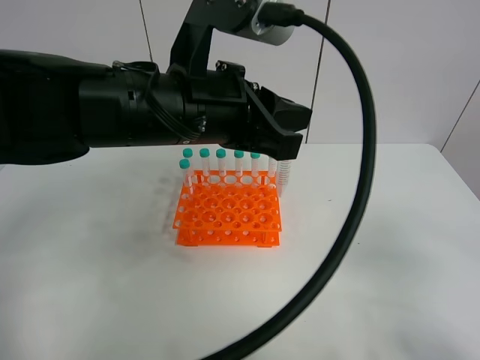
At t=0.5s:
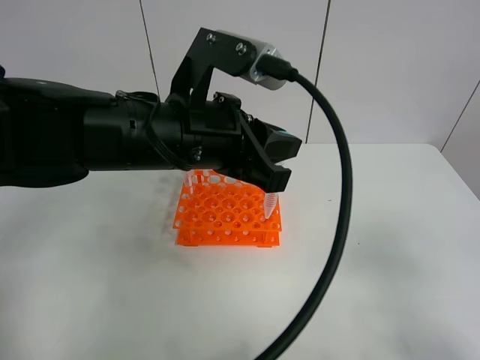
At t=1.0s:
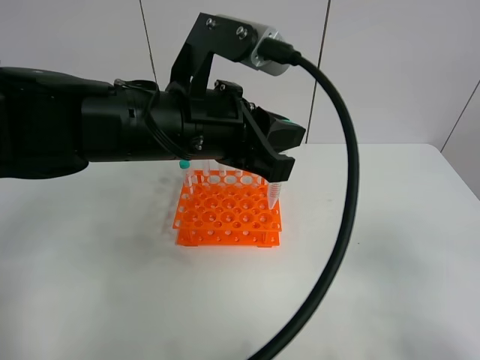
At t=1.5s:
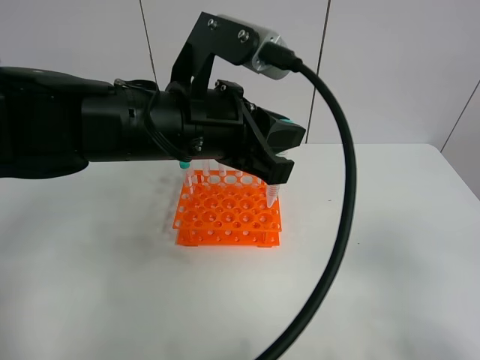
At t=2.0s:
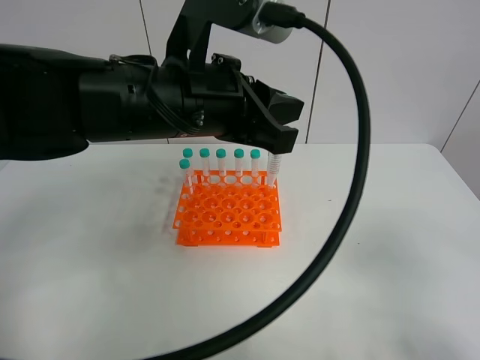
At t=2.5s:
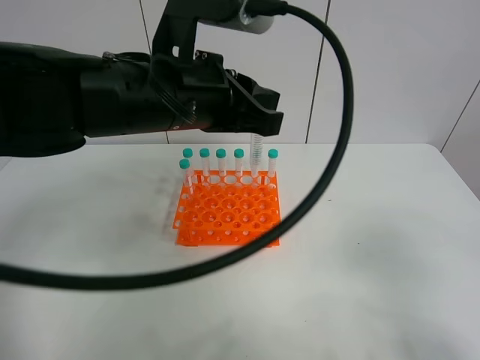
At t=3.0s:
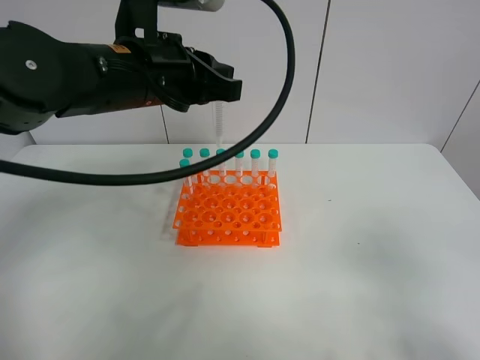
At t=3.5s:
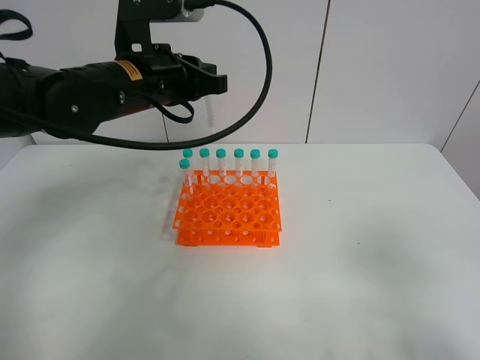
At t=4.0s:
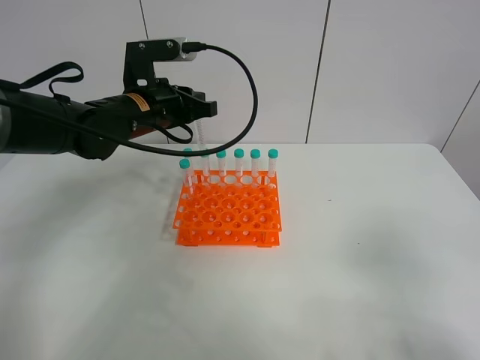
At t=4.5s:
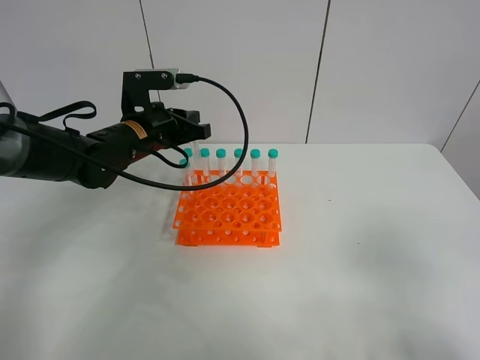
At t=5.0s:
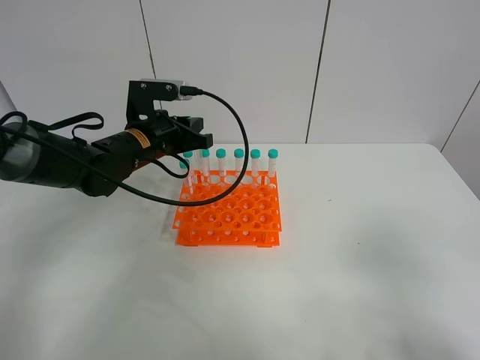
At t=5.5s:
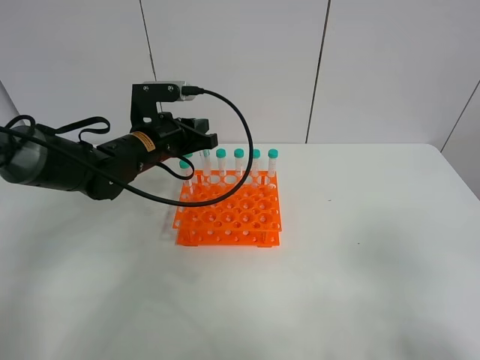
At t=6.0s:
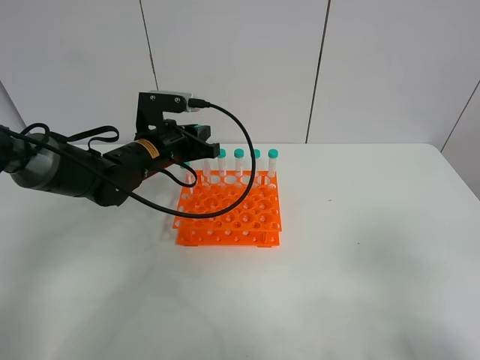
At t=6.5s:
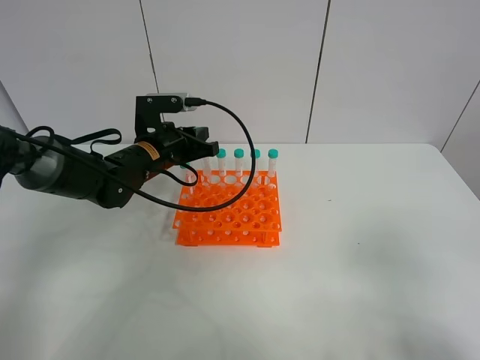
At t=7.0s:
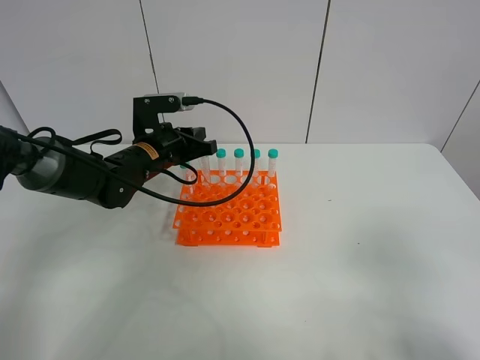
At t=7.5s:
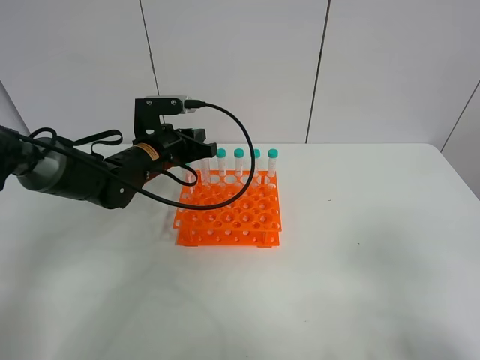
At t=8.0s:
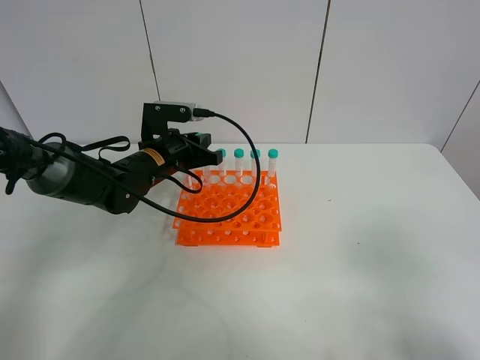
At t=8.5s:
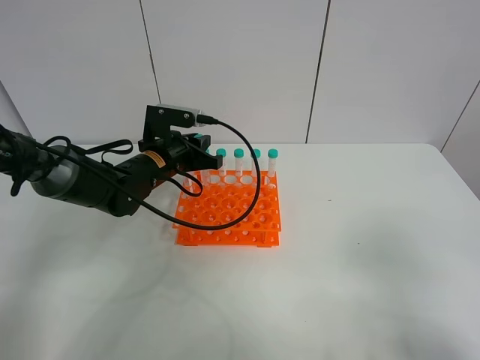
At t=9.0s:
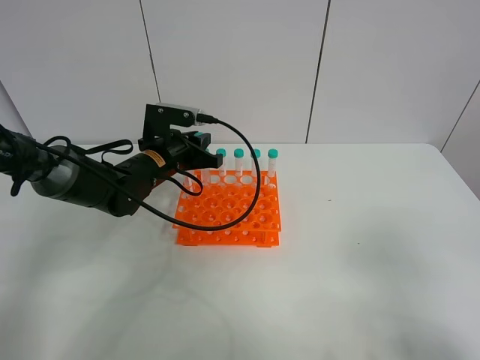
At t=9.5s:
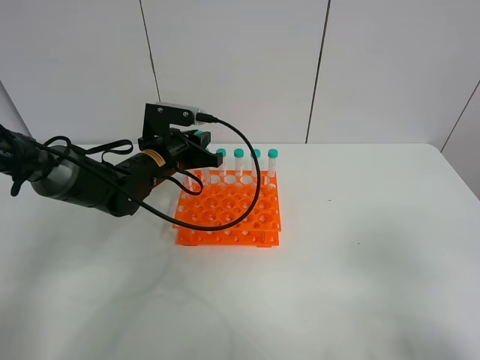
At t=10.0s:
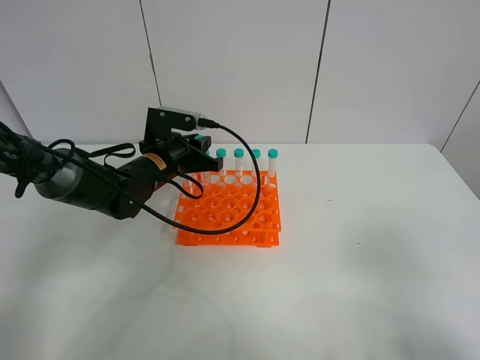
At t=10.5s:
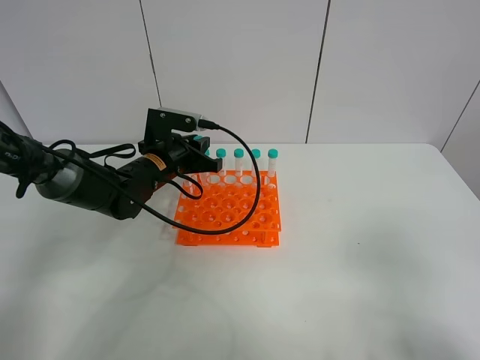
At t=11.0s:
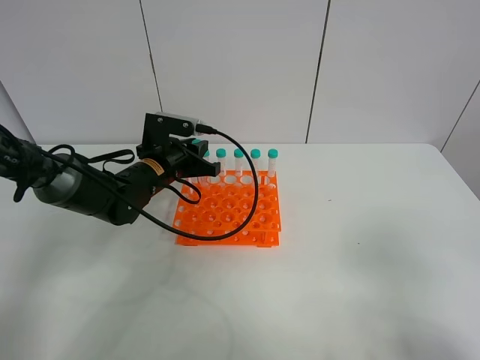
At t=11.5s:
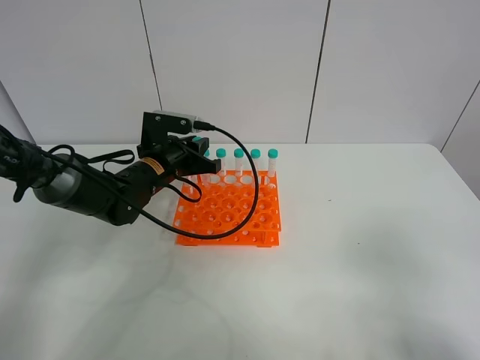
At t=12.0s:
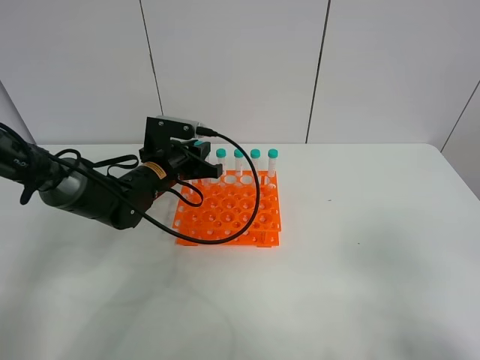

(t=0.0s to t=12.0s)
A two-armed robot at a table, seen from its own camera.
Task of the whole recording: Put the test tube on the table back onto the test tube rack.
t=0.0s - t=2.0s: The grippers stay close to where they were, moving slightly.
t=2.0s - t=4.0s: The left gripper goes roughly 15 cm forward, to the left and downward.
t=4.0s - t=6.0s: The left gripper goes some 5 cm downward.
t=6.0s - t=10.0s: The grippers make only small movements.
t=10.0s - t=12.0s: Neither gripper changes place.

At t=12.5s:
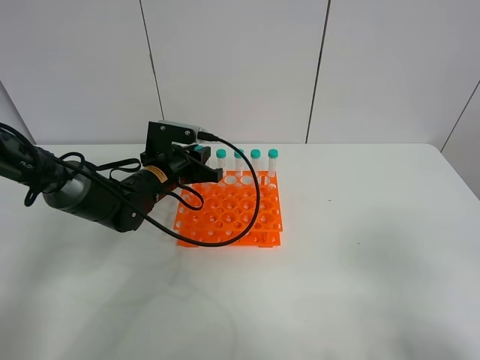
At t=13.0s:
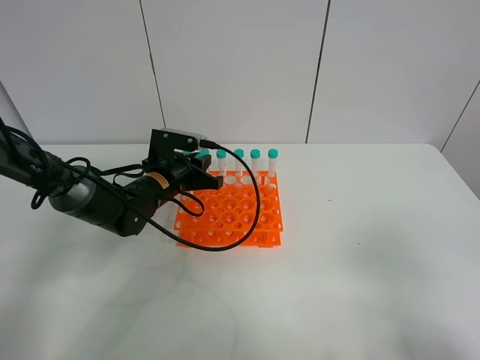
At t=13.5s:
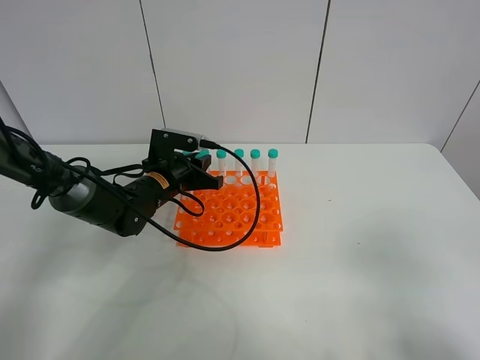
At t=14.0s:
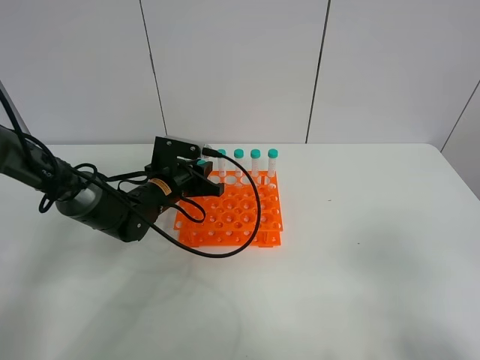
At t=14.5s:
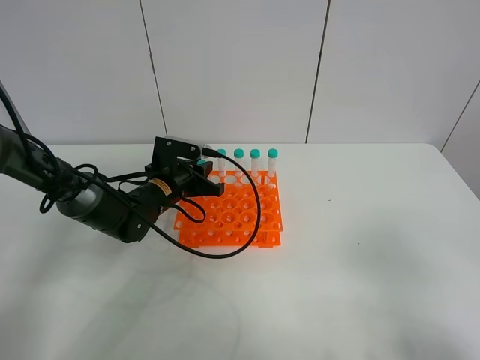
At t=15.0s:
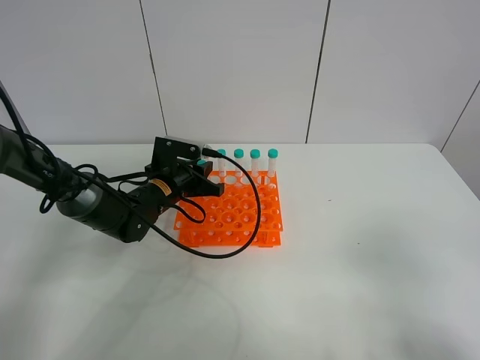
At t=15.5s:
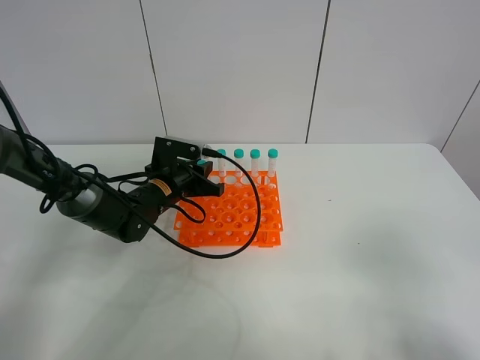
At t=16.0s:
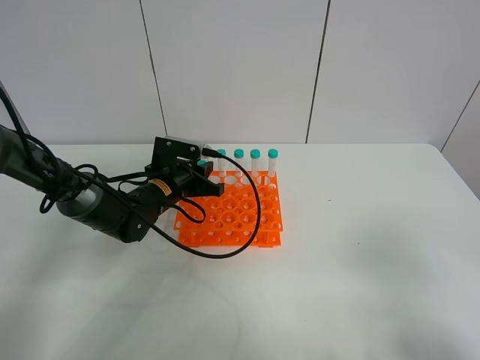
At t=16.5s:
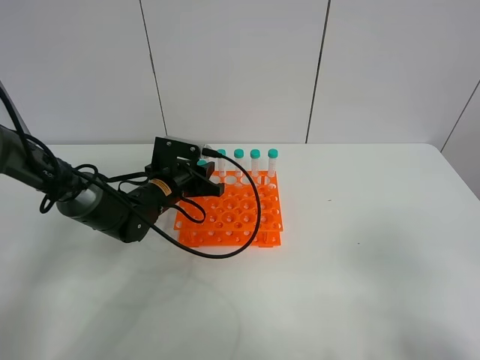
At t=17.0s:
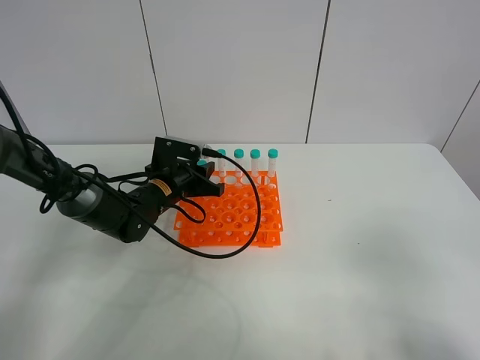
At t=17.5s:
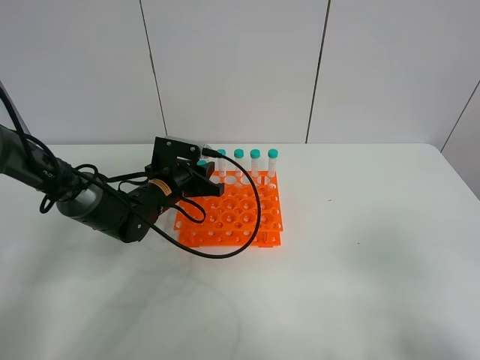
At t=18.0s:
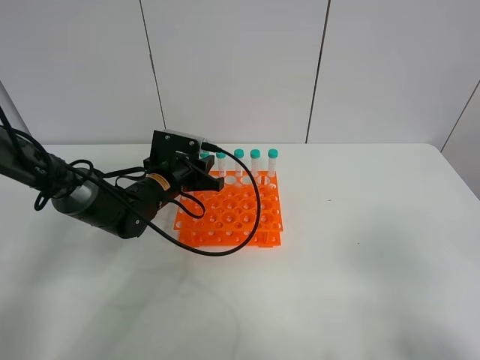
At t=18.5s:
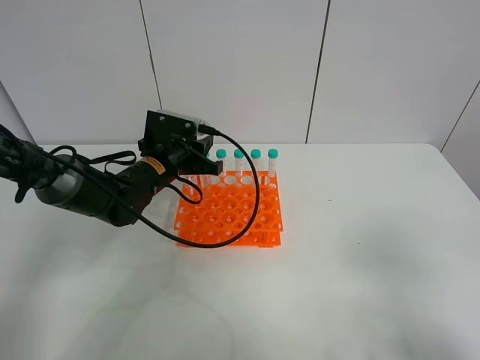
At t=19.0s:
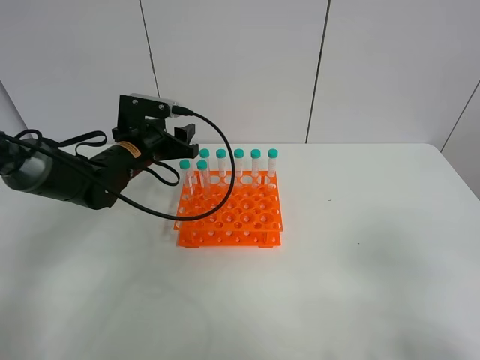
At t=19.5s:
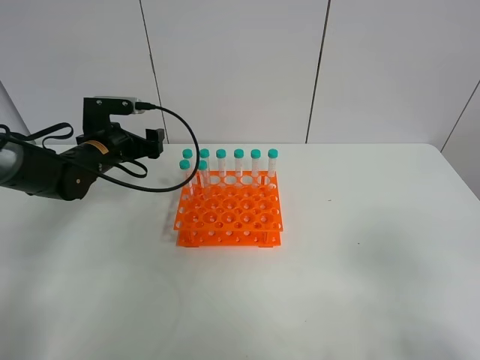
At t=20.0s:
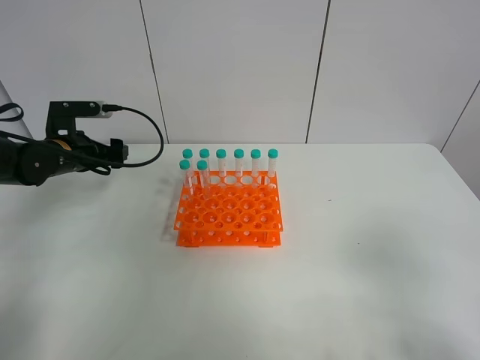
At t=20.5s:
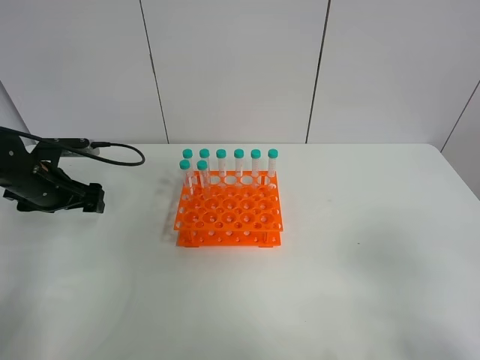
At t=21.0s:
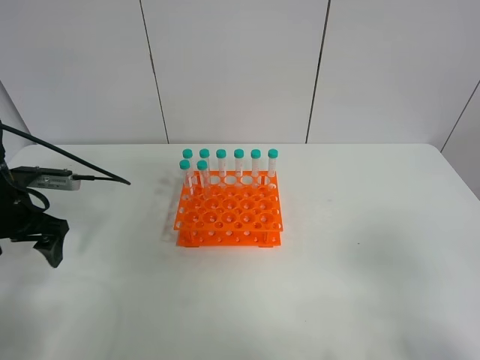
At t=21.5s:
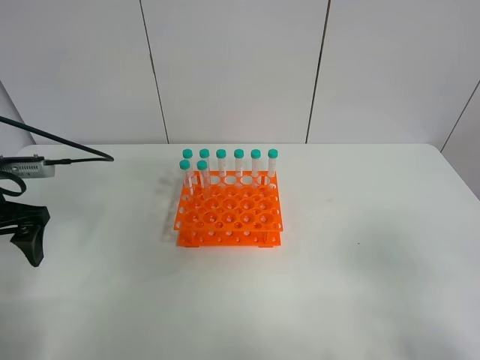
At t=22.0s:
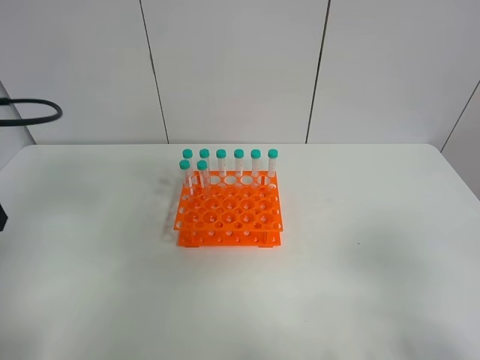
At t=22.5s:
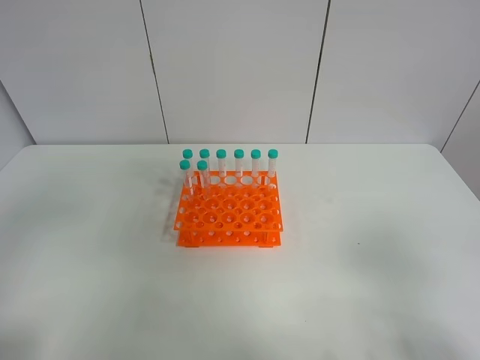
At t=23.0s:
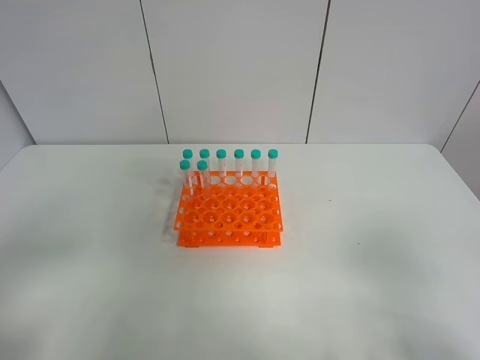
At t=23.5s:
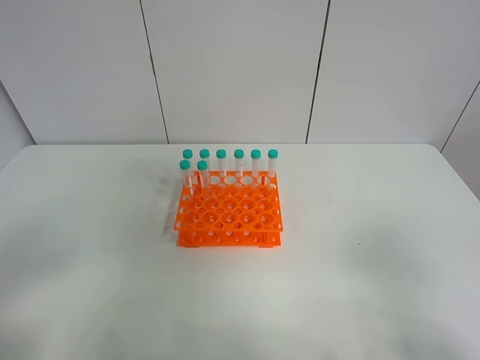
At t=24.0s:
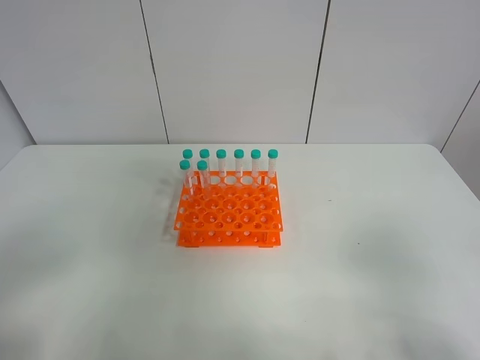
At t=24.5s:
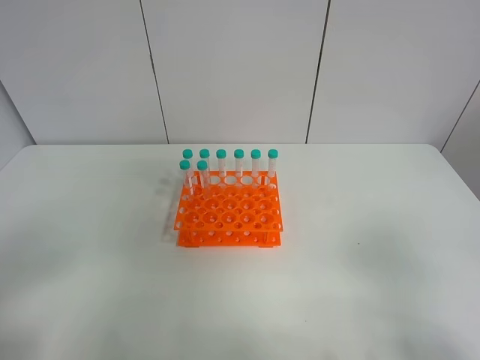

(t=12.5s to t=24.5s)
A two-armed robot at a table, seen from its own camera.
Task of the whole recording: Put the test tube on the table back onto the test tube rack.
Step, t=12.5s - t=19.5s: Place the test tube on the test tube rack with the left gripper.
t=12.5s - t=14.5s: The grippers stay close to where they were, moving slightly.
t=14.5s - t=16.5s: The two grippers keep their place.
t=16.5s - t=18.5s: The grippers make only small movements.
t=18.5s - t=20.5s: The left gripper shifts some 20 cm to the left, and opens up.
t=20.5s - t=22.5s: The left gripper moves backward and upward, about 35 cm.
